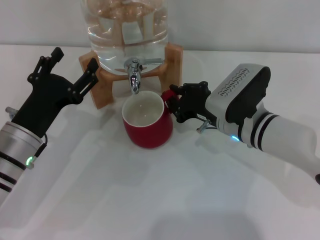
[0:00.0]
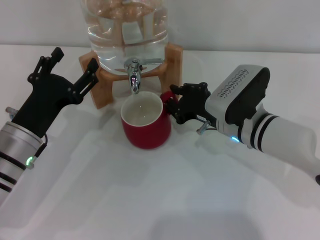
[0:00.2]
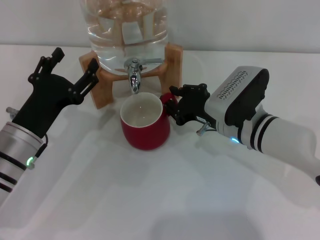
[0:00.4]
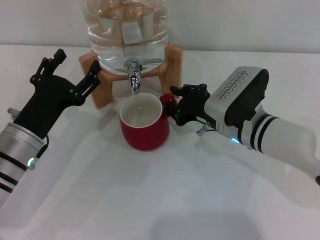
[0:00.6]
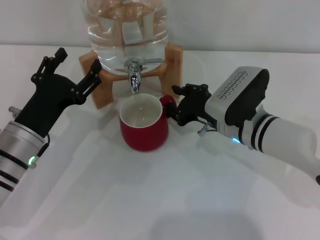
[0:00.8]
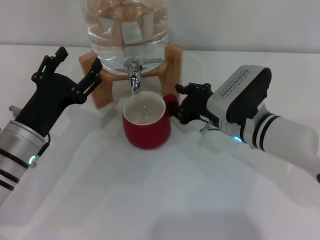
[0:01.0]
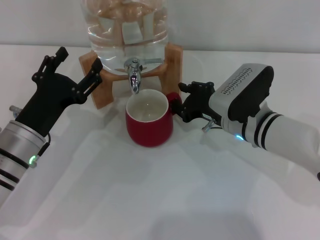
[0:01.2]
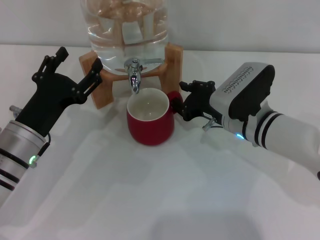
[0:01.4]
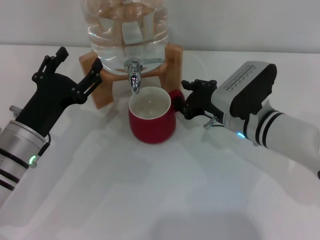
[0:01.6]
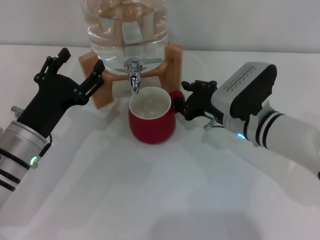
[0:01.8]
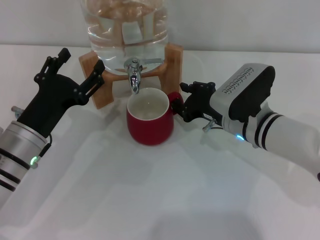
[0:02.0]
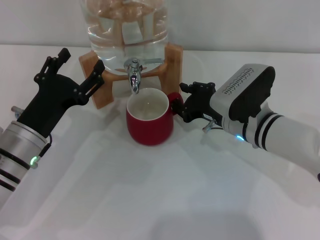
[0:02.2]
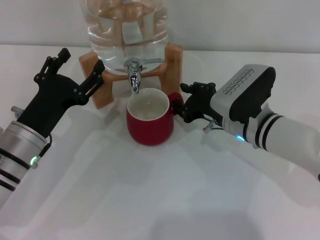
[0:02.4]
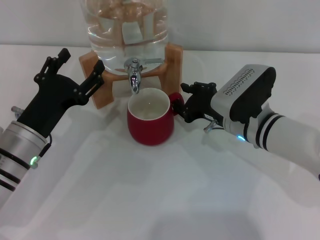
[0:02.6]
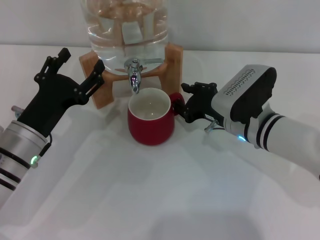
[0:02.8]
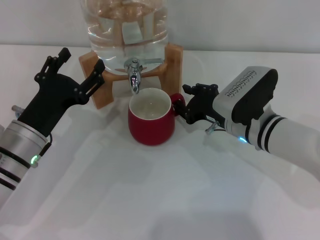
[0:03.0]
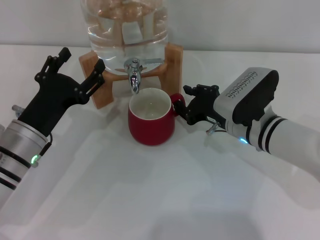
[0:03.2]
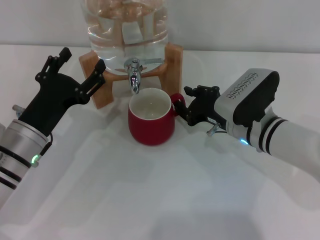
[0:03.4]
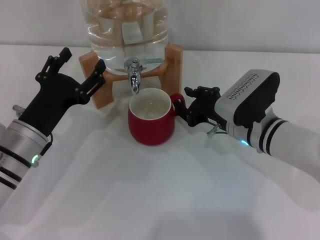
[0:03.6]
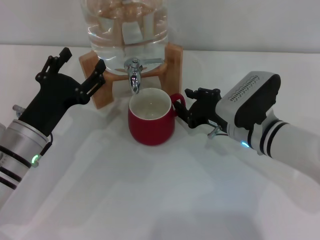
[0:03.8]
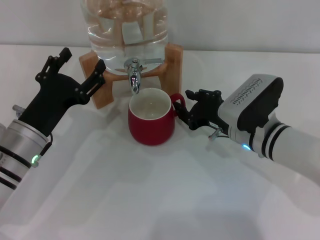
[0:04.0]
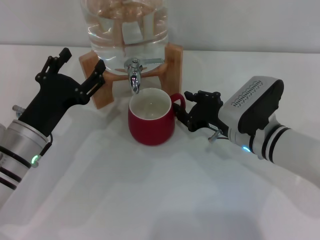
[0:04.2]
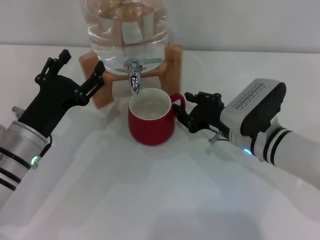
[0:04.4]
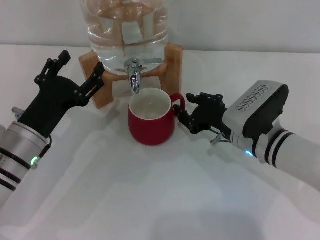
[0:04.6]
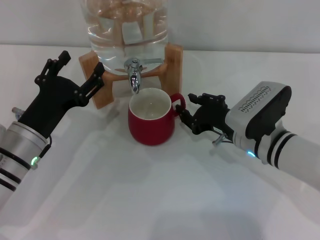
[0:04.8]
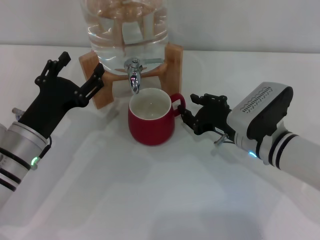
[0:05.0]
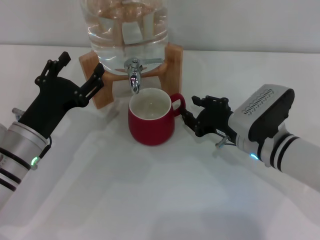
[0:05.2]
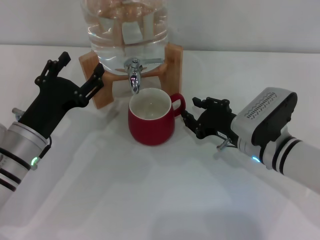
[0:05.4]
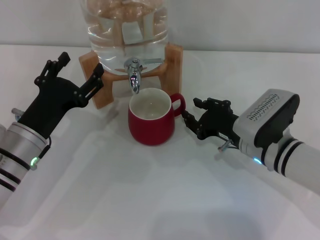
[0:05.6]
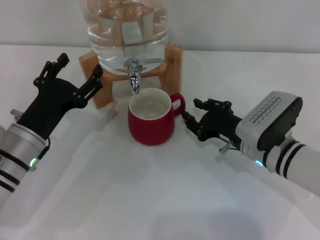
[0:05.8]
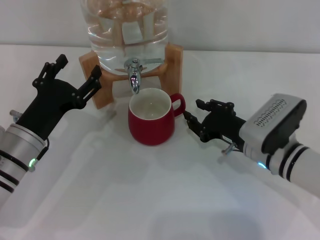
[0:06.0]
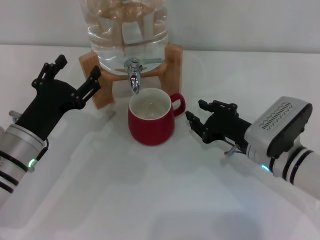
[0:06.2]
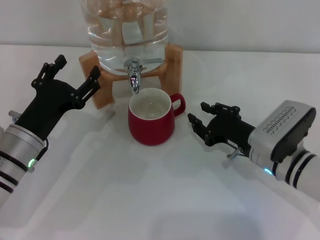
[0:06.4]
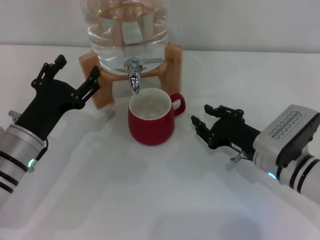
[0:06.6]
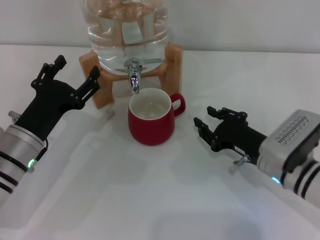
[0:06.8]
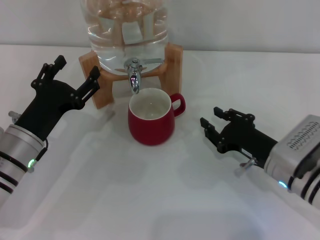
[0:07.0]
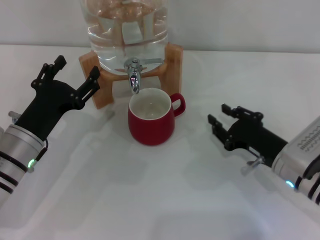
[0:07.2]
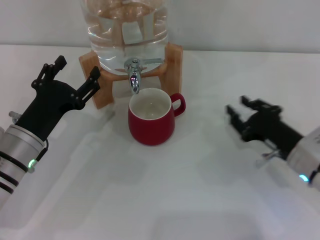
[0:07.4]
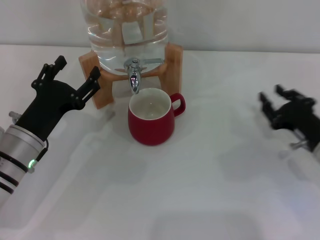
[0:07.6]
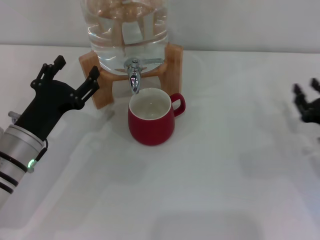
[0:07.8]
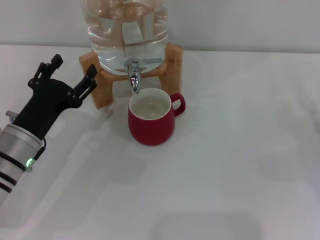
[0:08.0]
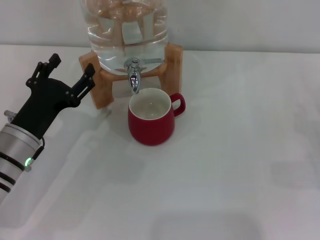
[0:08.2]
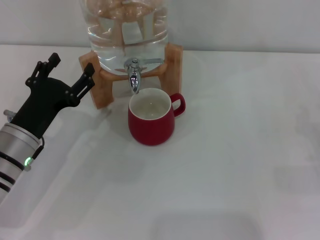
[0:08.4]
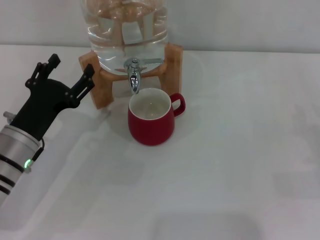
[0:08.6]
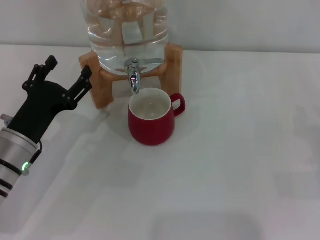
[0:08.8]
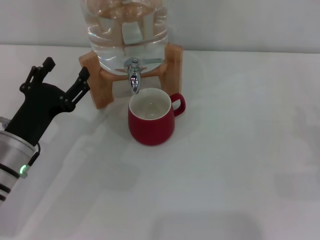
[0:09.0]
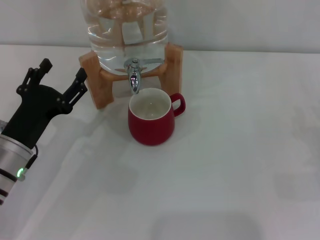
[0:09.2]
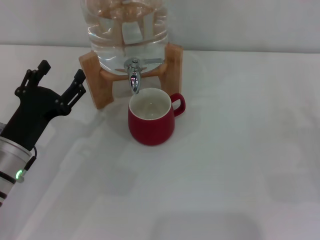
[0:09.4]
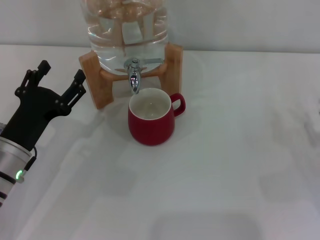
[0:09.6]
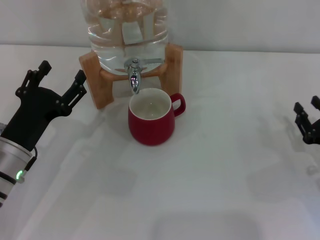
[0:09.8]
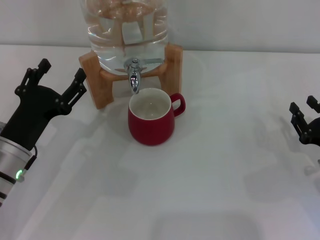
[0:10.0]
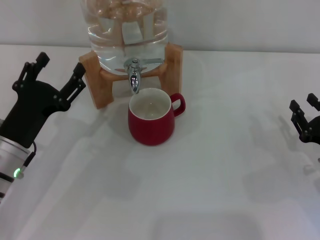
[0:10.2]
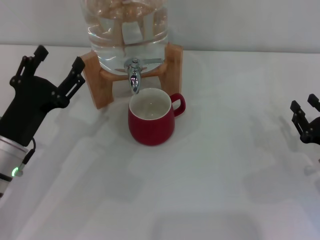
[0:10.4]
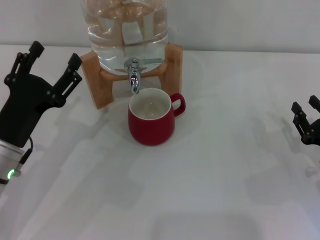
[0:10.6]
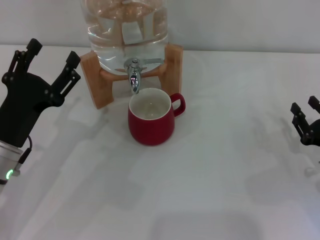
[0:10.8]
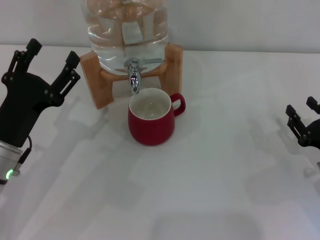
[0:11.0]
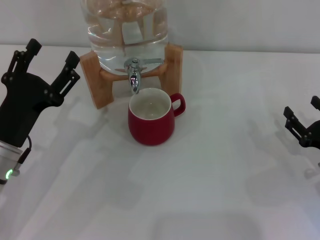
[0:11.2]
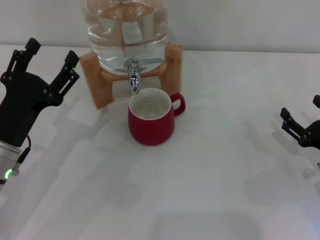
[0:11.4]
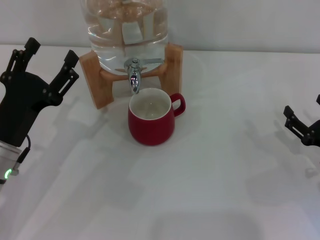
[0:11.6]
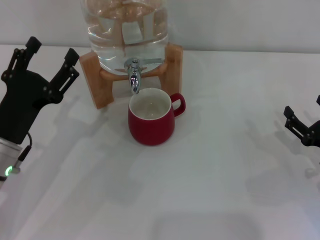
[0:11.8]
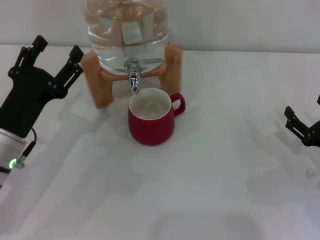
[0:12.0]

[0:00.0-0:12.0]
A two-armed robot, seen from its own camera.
Task of the whole recording: the right gripper pick up the red cup and place it horizontally under the faucet, the left gripper turn on the faucet to fill the cup, and then turn off the faucet.
Step, 0:00.0 to 0:05.6: Move the cup beneath the water dispenser nozzle with the right gripper.
0:00.0 to 0:01.6: Both grippers stay about where they are.
0:01.6 to 0:03.0: Both grippers stay put.
0:03.0 to 0:06.0: The grippers stay close to where they were, moving slightly.
0:06.0 to 0:07.6: The right gripper moves to the right, roughly 10 cm.
0:07.6 to 0:09.0: The right gripper goes some 10 cm to the right.
0:09.0 to 0:10.4: The right gripper shifts about 5 cm to the left.
0:10.4 to 0:12.0: The right gripper opens up.

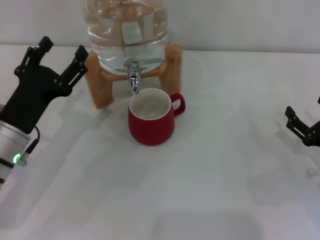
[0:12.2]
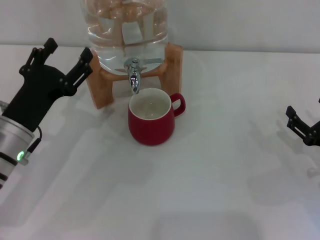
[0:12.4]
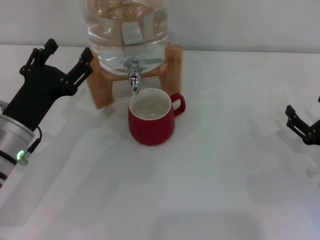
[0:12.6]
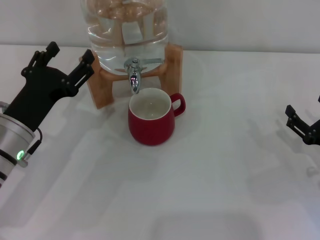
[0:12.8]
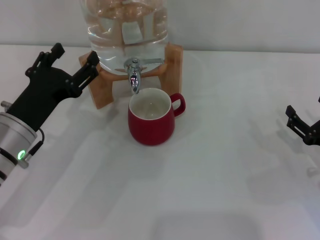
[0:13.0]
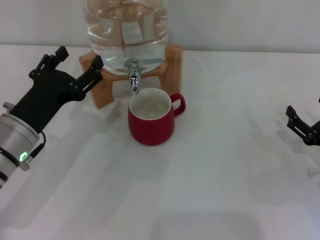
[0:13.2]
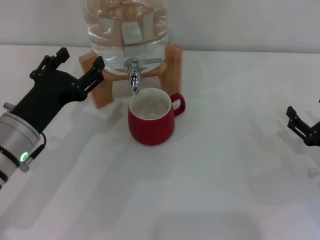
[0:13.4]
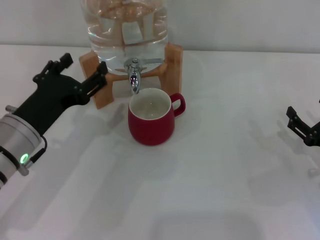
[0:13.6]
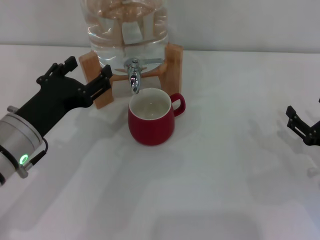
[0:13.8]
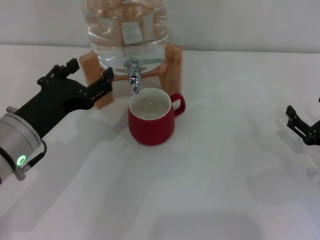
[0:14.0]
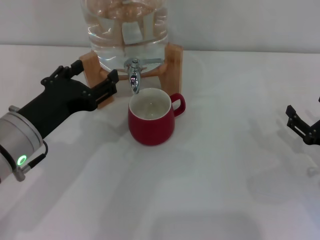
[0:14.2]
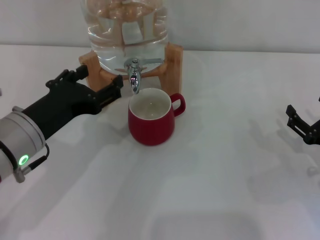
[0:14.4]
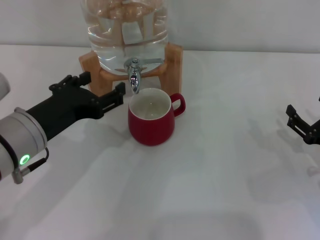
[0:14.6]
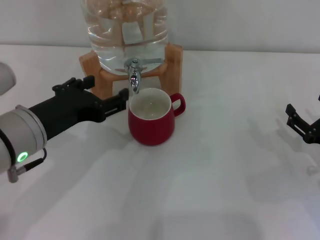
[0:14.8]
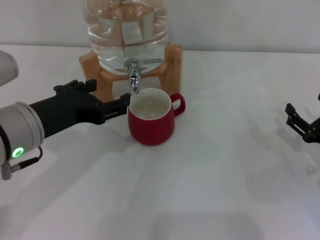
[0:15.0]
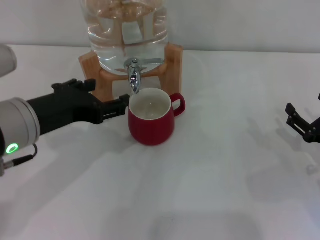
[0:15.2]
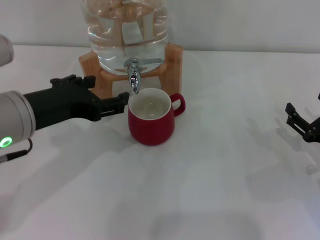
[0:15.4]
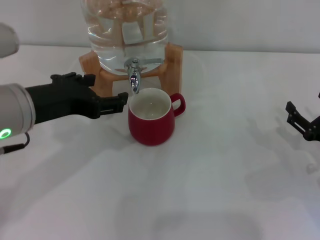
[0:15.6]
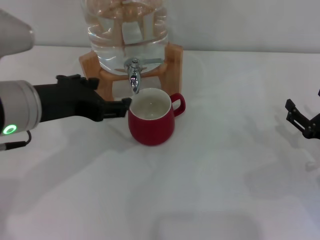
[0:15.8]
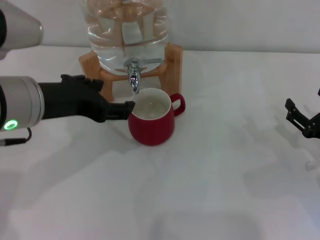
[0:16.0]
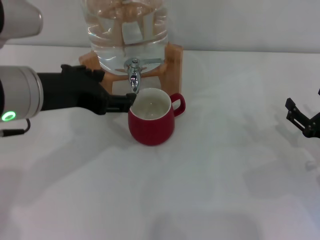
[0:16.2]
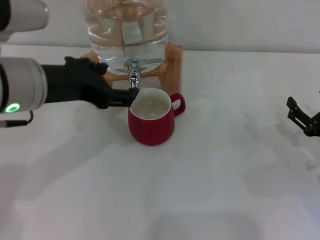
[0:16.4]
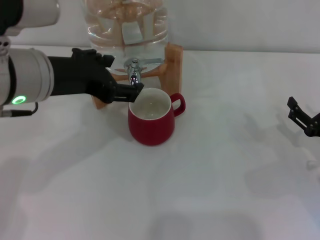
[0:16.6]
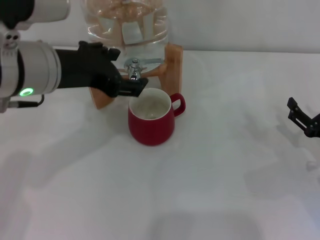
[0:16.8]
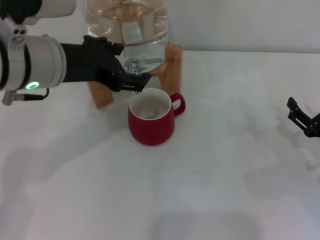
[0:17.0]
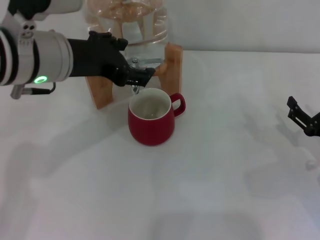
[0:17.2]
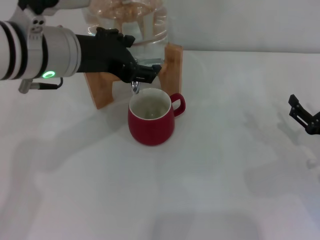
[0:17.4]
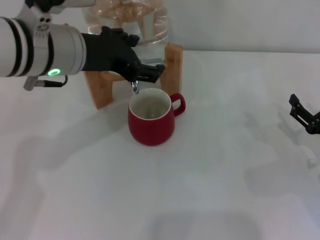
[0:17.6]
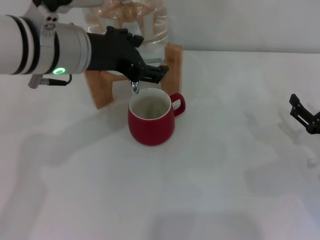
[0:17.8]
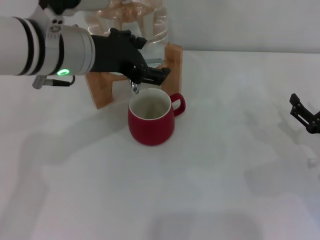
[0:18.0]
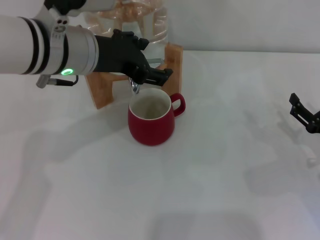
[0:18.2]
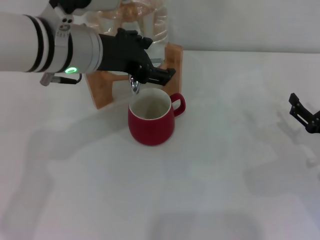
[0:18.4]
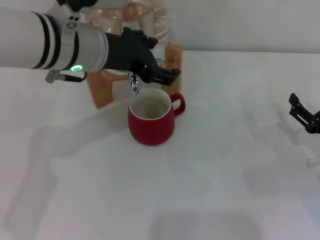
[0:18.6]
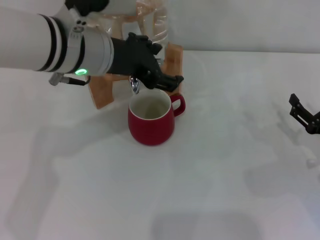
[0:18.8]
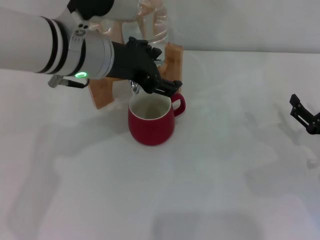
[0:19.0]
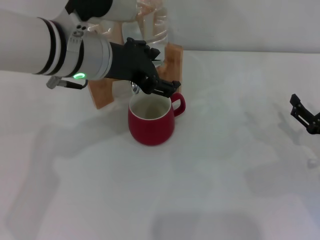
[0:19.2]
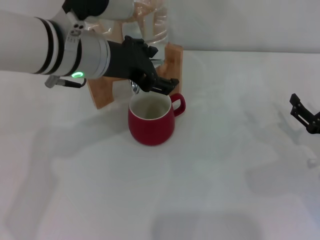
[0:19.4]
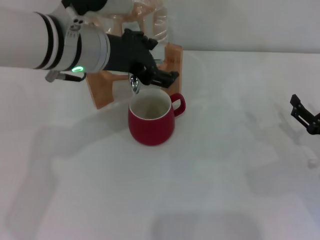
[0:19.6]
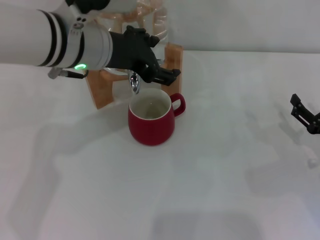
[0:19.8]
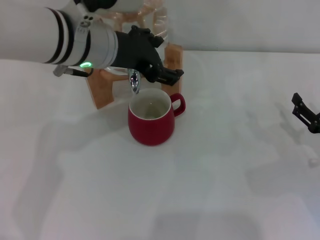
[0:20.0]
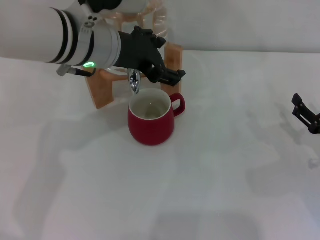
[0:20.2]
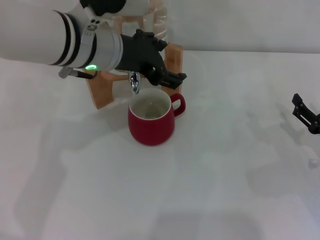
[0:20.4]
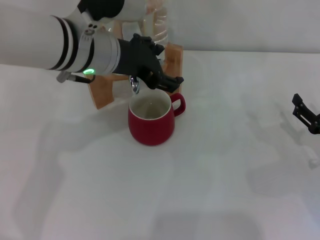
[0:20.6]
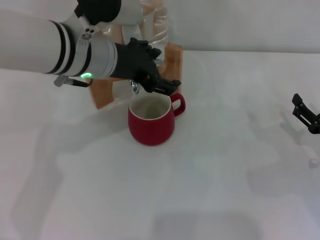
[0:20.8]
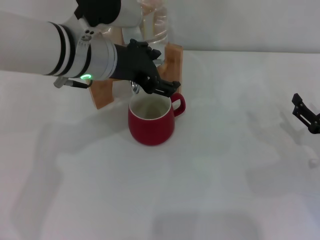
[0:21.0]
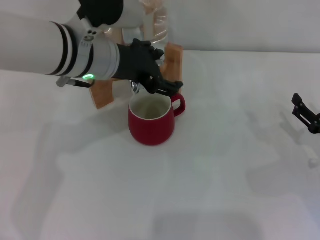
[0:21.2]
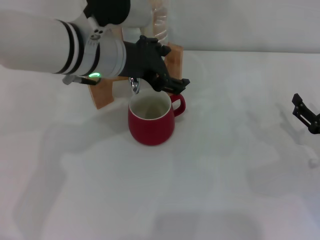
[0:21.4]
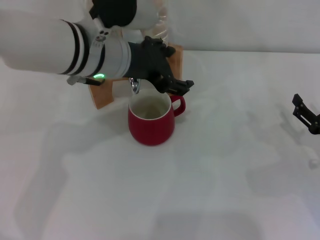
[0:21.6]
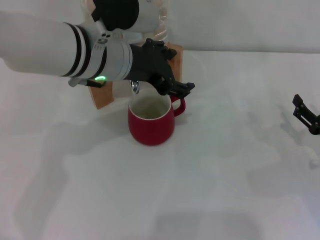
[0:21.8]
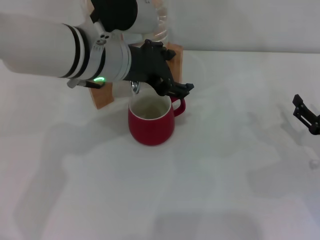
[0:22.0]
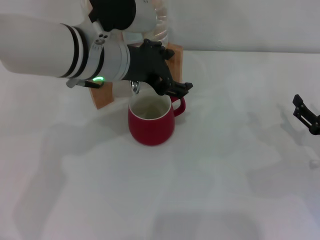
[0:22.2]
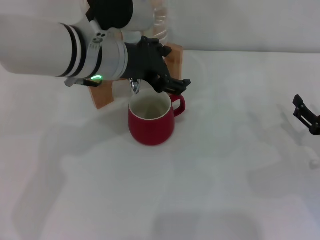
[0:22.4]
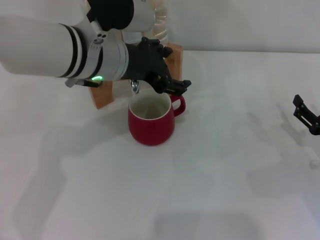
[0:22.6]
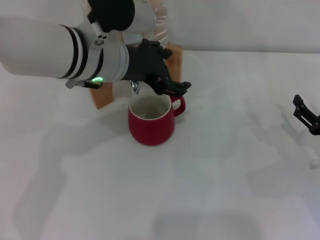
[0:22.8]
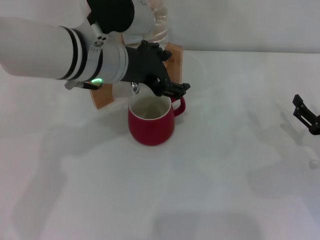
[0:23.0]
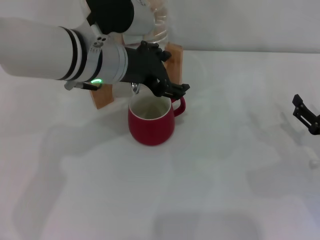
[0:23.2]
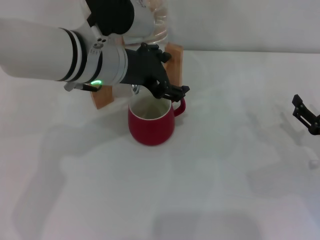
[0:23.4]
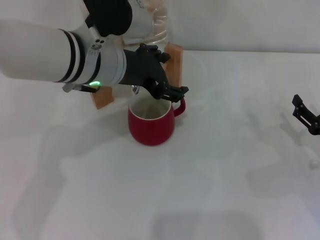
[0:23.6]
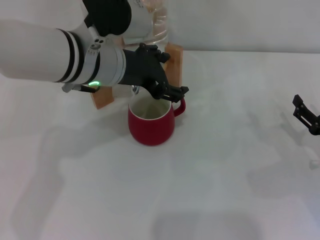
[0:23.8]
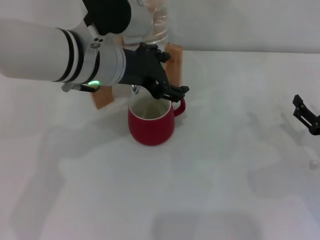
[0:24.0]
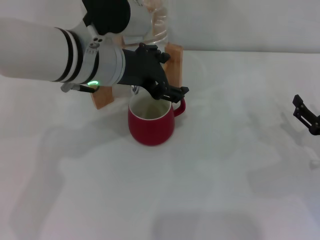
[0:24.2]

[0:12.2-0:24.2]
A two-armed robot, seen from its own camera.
Task of the whole recording: the right gripper pick up the red cup and place it horizontally under the faucet, the left gripper turn on the faucet to fill the cup, and then turn off the faucet.
0:12.2 to 0:13.8: The left gripper moves about 5 cm.
0:13.8 to 0:15.2: The left gripper travels upward by roughly 5 cm.
0:15.2 to 0:16.6: The left gripper goes about 5 cm upward.
0:16.6 to 0:18.2: The left gripper heads forward, covering some 5 cm.
0:18.2 to 0:22.6: The grippers stay close to where they were, moving slightly.
0:22.6 to 0:24.2: Both grippers stay about where they are.
